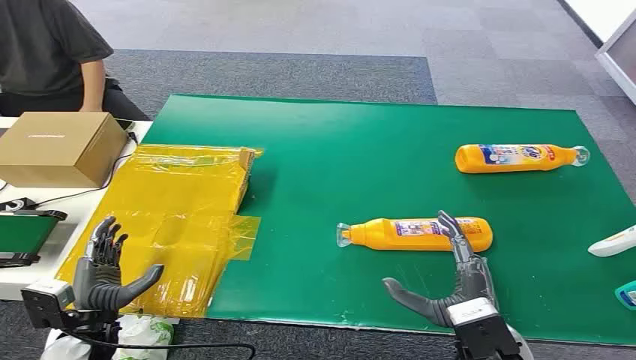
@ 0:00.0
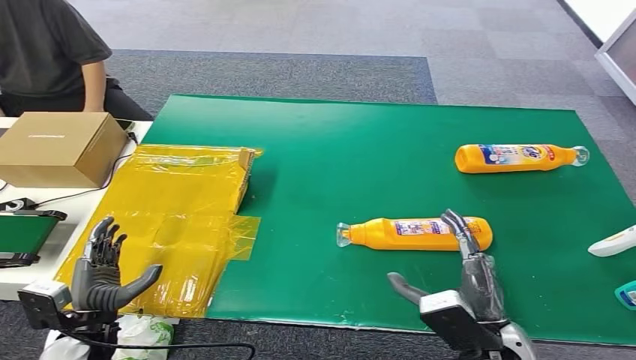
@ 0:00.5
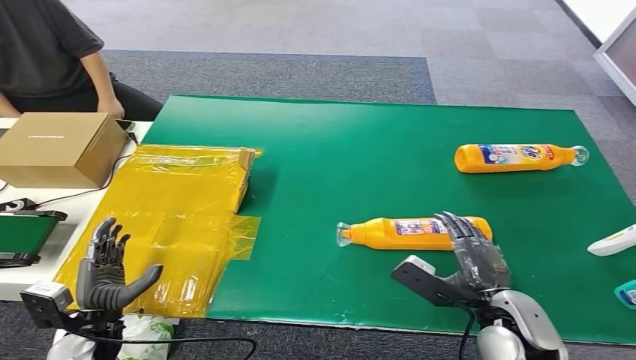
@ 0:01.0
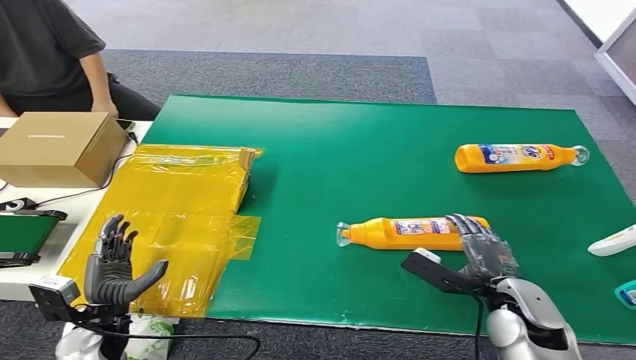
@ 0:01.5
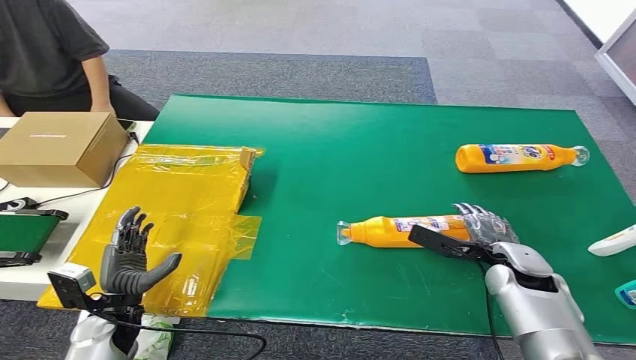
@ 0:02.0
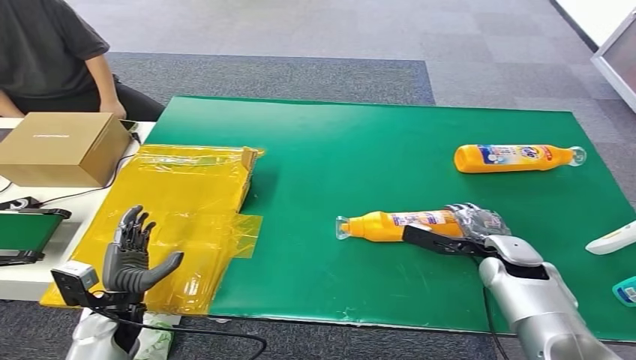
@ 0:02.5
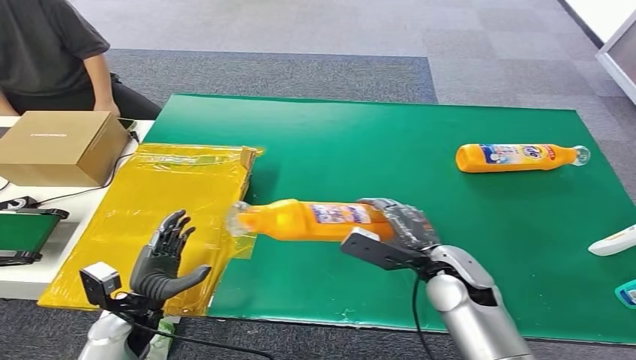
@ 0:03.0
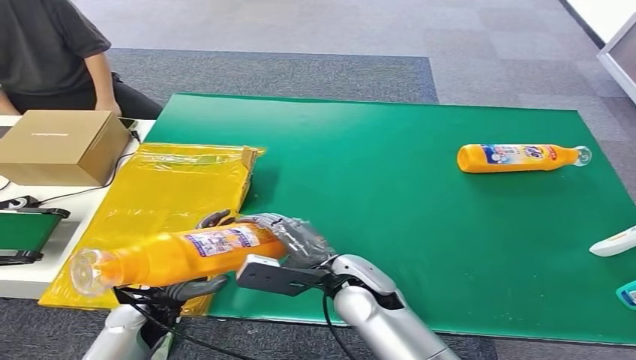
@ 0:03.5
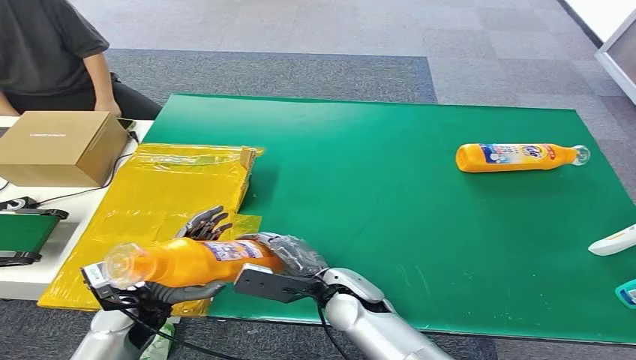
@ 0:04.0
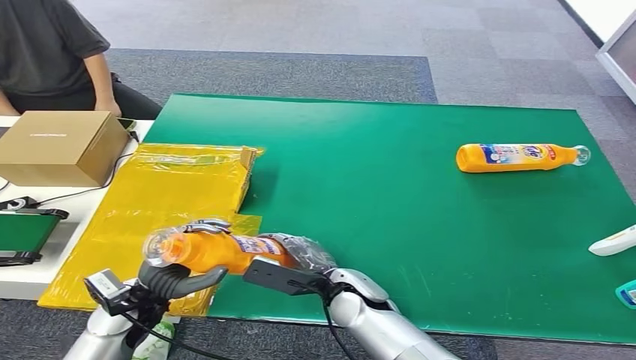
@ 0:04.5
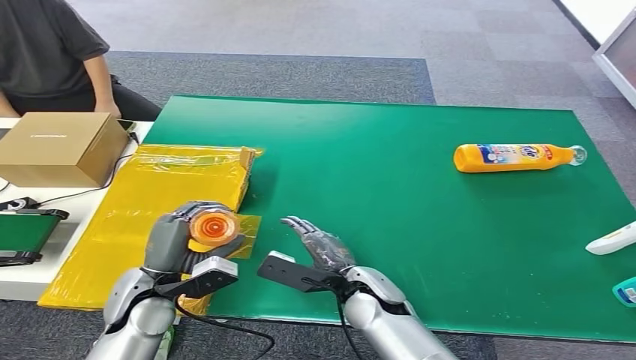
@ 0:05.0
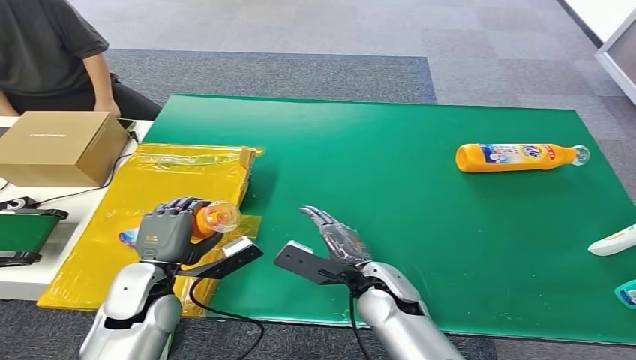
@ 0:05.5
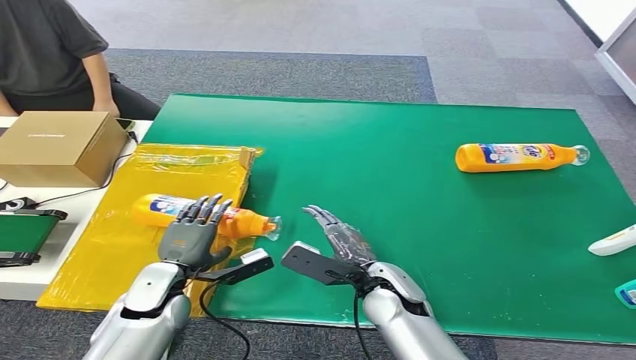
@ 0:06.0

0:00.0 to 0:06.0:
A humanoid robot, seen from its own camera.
Step, 0:00.0 to 0:02.5: Pick up the bottle from the table.
Step, 0:03.0 to 0:06.0: Turn the bottle to the front side.
0:02.0 to 0:04.0: The right hand is displaced to the left by some 25 cm, while the left hand is displaced to the right by approximately 5 cm.
0:04.0 to 0:06.0: The right hand goes about 5 cm to the right.
